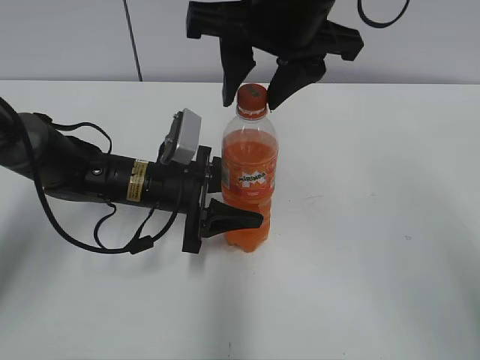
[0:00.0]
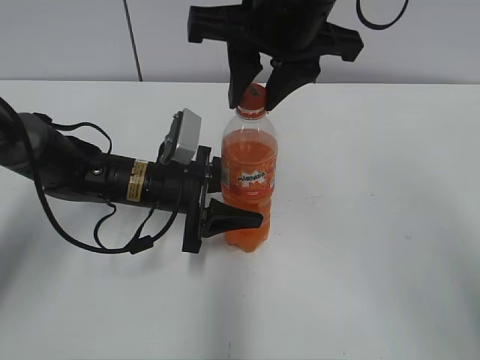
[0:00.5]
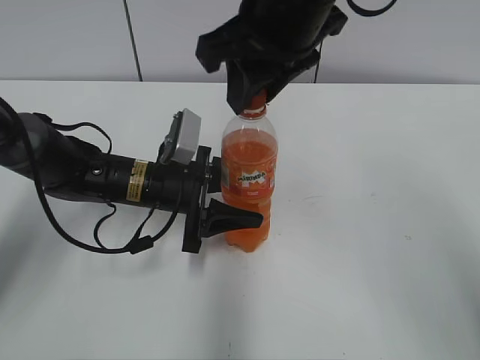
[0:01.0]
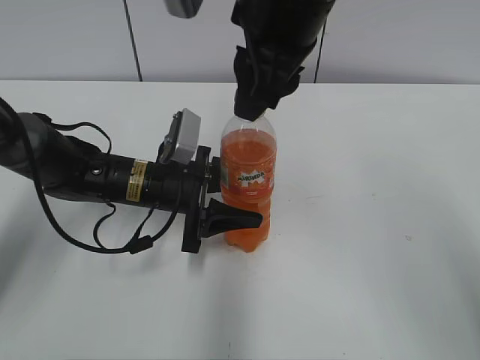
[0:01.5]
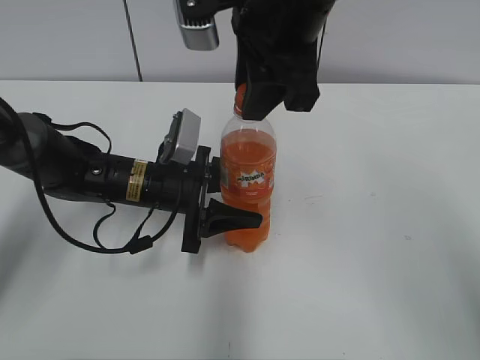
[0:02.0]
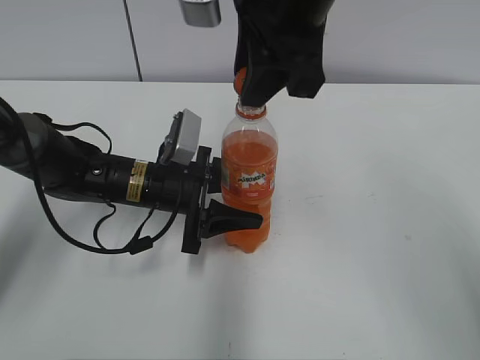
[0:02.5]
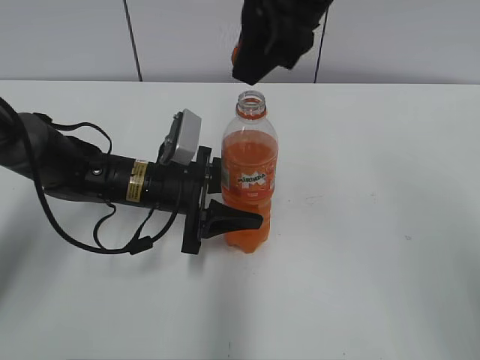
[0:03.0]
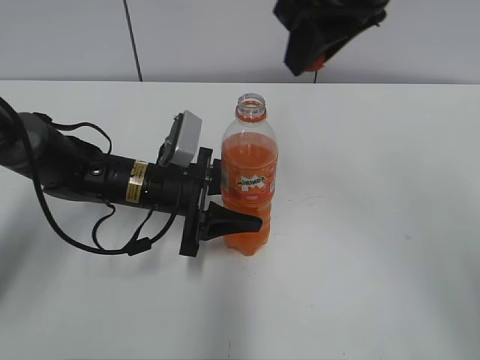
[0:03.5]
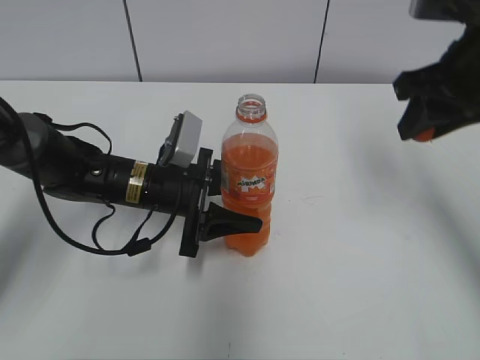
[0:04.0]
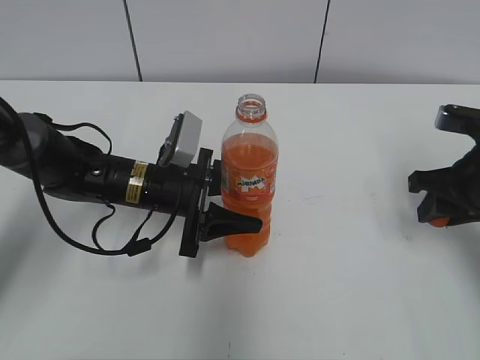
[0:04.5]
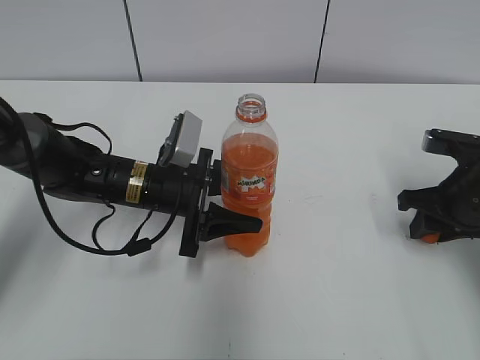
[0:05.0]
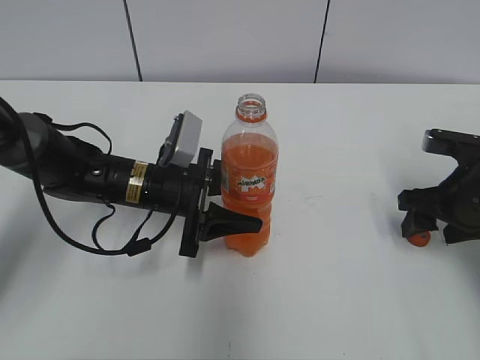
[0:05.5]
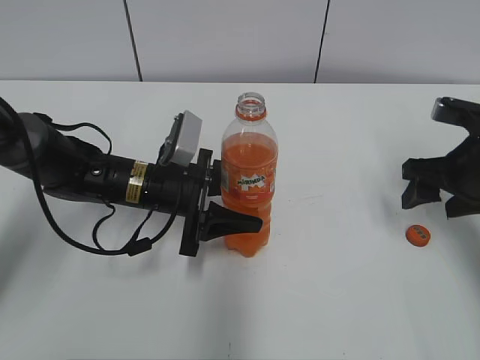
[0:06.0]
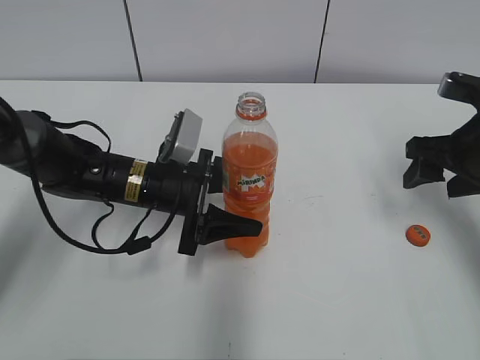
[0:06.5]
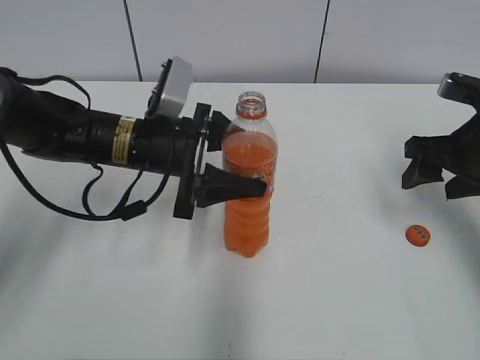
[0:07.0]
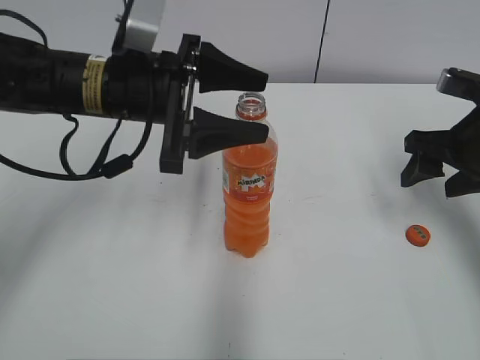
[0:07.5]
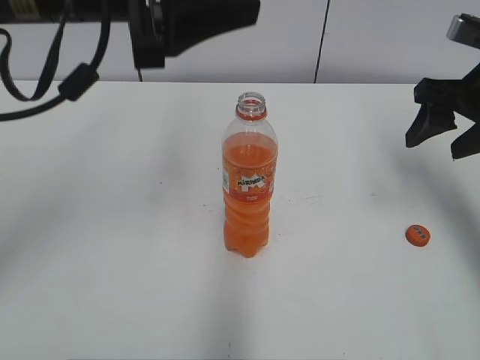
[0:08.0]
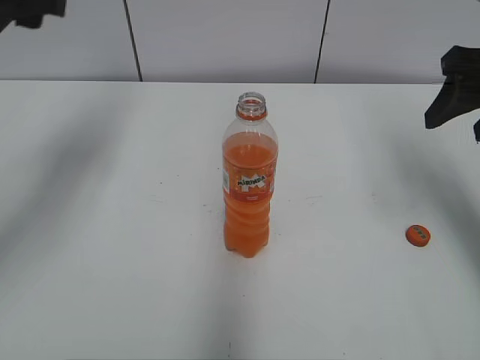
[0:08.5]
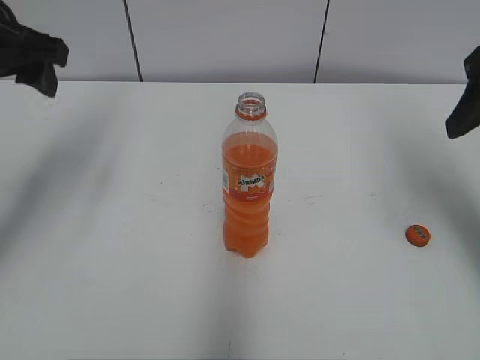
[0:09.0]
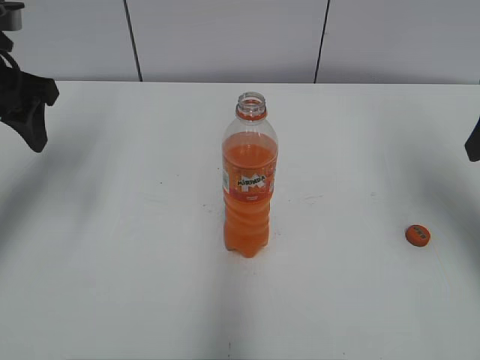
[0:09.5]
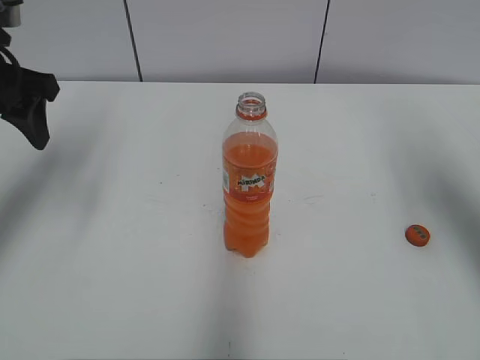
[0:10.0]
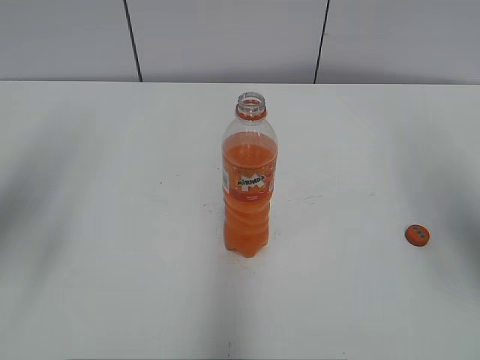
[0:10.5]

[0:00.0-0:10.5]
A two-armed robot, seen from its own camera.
Step, 0:03.0 to 0:05.0: Place the bottle cap on the right.
0:00.0 to 0:02.0: The right gripper closes its fingers.
0:02.0 to 0:04.0: The right gripper shifts approximately 20 cm to the right.
0:04.0 to 0:06.5: The left gripper opens up. The right gripper heads downward and to the right, covering approximately 10 cm, and opens up.
0:06.5 to 0:08.5: The left gripper heads upward and to the left, covering roughly 30 cm; the right gripper moves upward, some 10 cm.
0:08.5 to 0:10.5: The grippers both shift backward by approximately 10 cm.

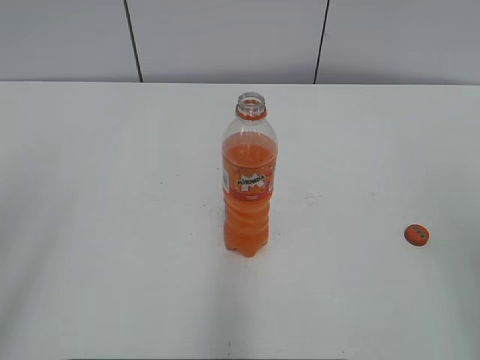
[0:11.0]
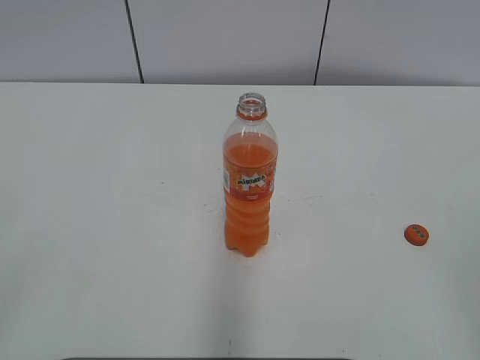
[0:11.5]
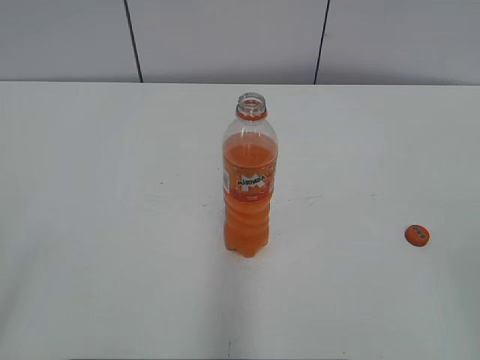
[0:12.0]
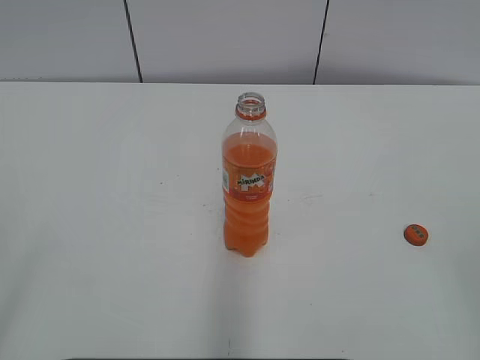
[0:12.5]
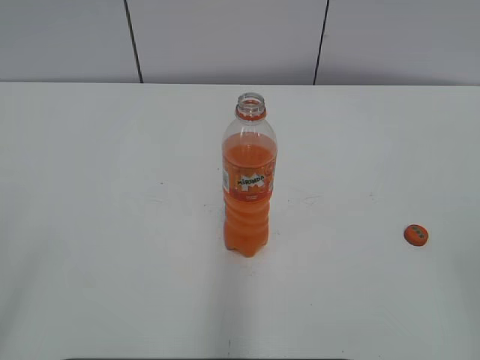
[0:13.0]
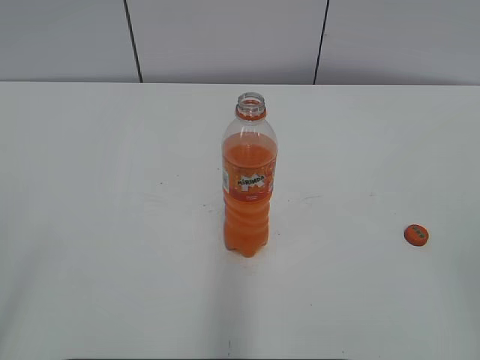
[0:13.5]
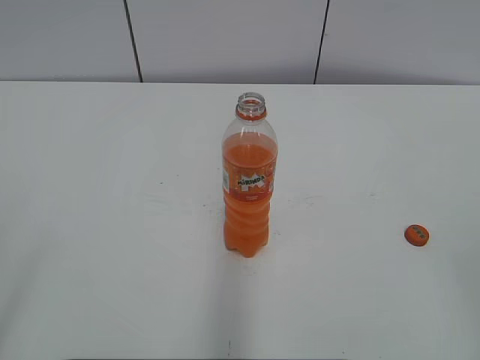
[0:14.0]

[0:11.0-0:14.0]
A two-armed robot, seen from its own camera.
0:12.5 to 0:14.0: Both grippers stay about where they are.

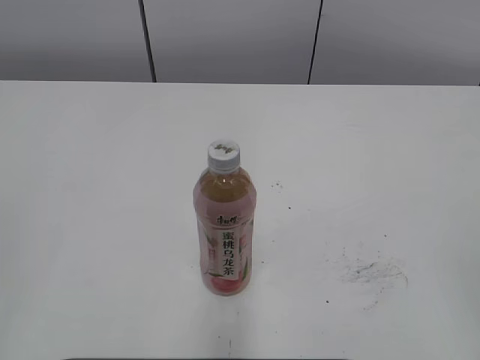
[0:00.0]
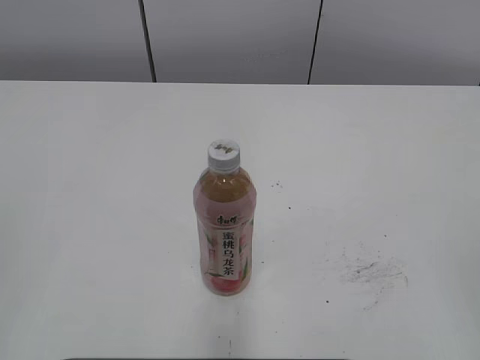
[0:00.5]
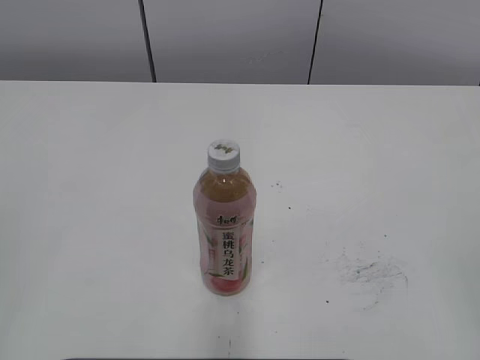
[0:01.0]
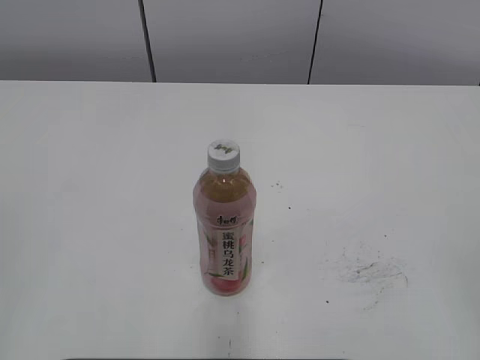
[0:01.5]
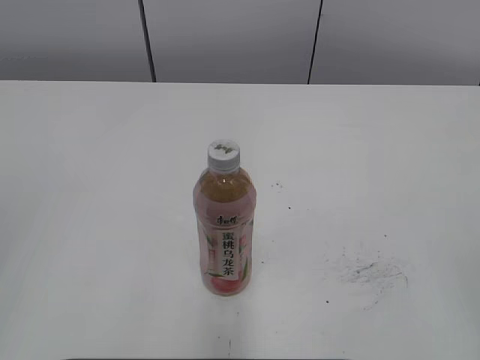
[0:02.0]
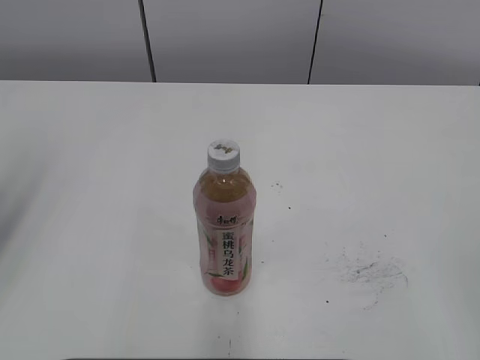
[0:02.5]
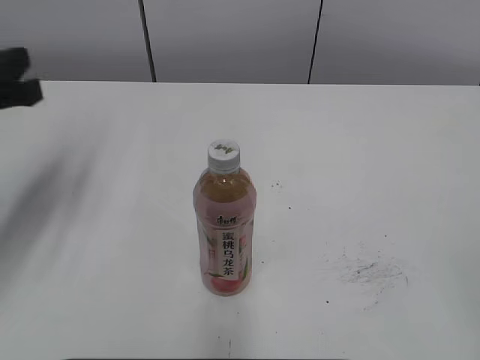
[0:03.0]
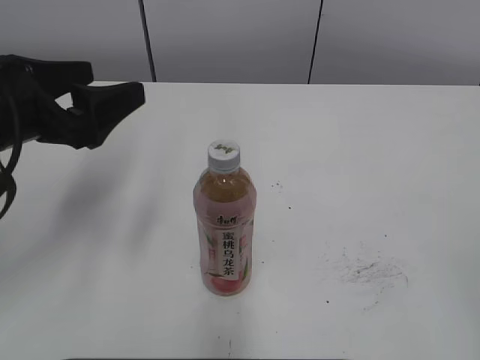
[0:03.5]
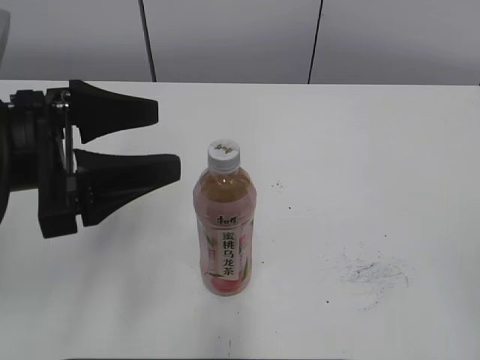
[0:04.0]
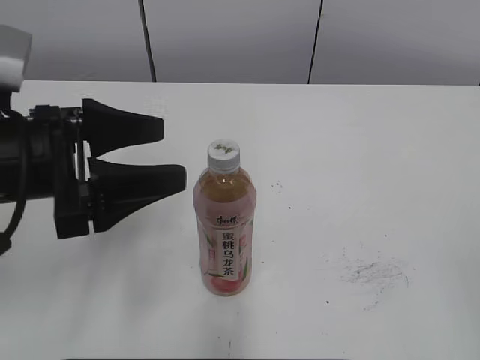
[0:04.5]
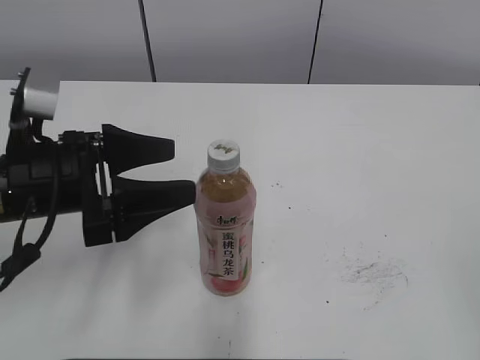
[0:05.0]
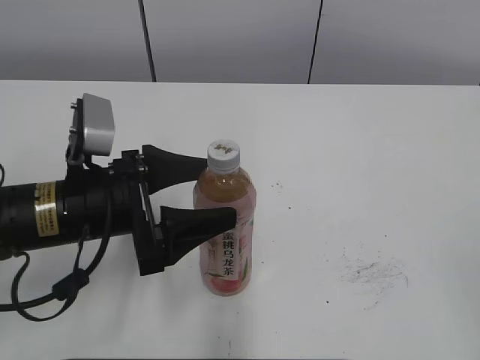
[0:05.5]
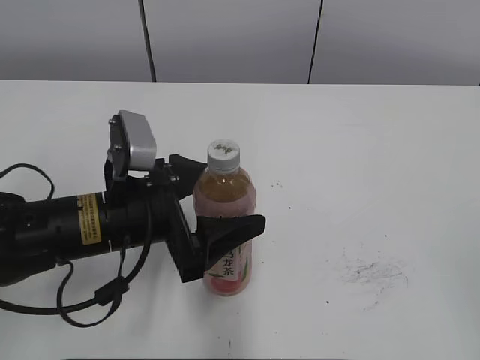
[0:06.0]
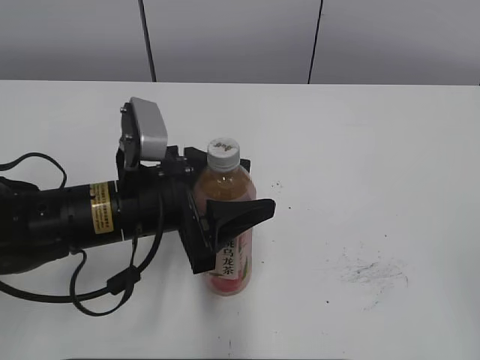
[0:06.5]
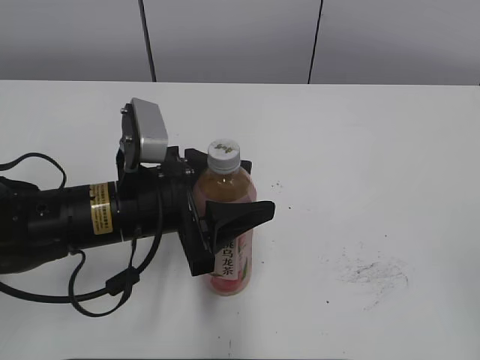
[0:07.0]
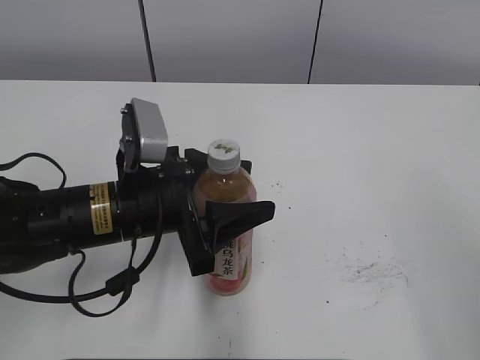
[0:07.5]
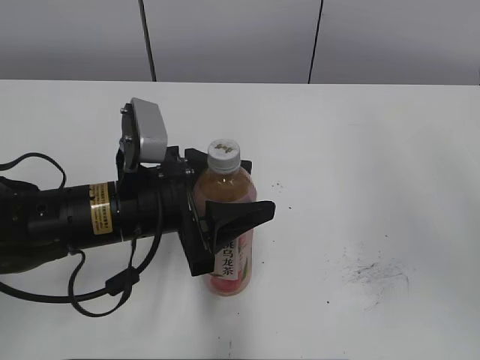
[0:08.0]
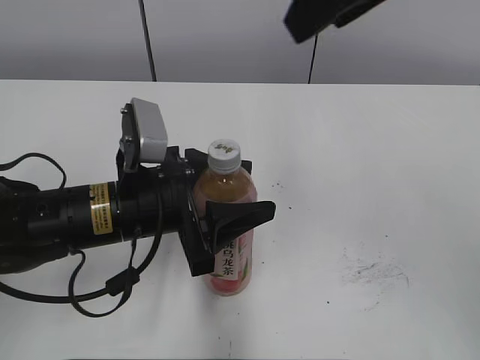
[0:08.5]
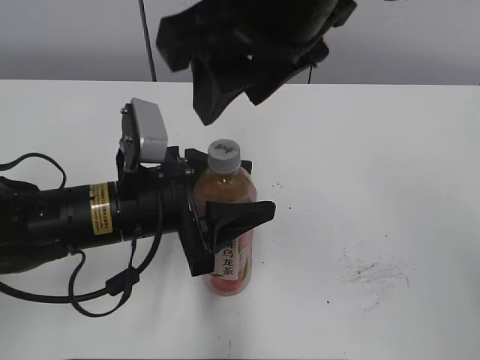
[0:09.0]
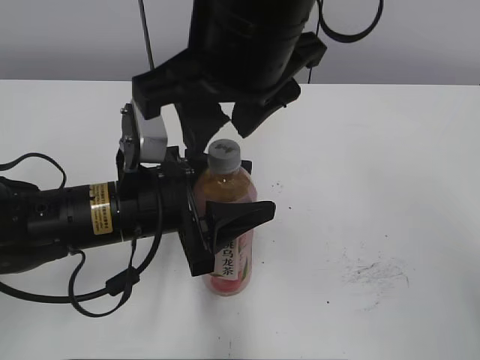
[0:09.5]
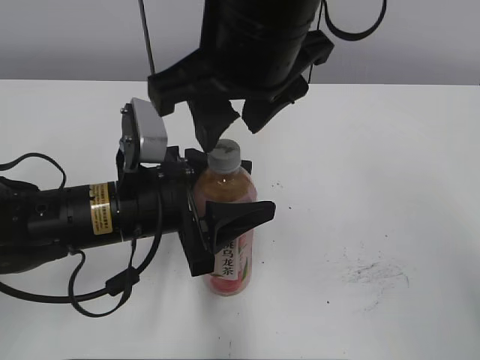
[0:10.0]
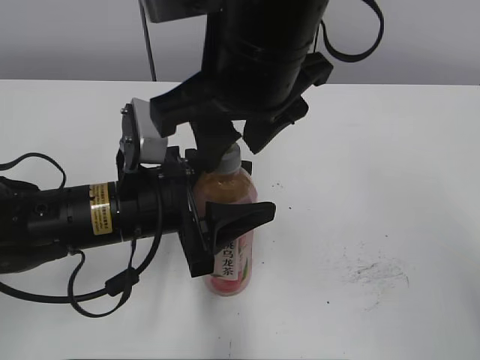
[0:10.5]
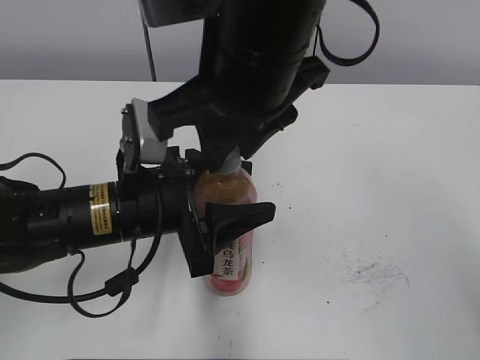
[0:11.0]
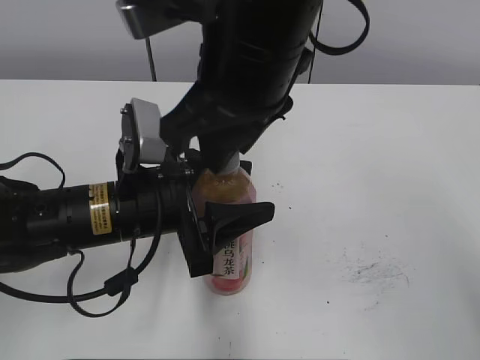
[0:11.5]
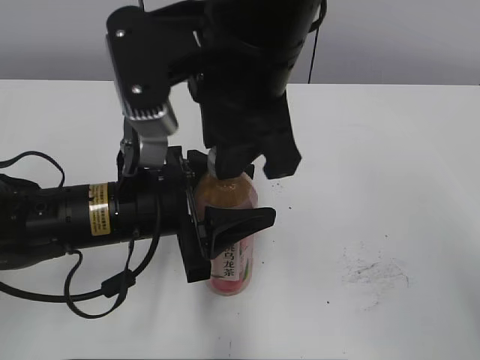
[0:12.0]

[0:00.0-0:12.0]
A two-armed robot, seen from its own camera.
Step, 0:00.0 to 0:06.5: Grab the Peach Oolong Tea with the left hand.
0:02.0 to 0:04.0: The left gripper shifts about 25 cm forward, to the right and downward, and opens its fingers.
0:04.0 to 0:06.0: The left gripper moves downward and to the right, roughly 10 cm.
0:06.0 to 0:08.0: The right gripper moves forward and upward, roughly 20 cm; the left gripper closes its fingers.
0:08.0 to 0:10.0: The right gripper moves to the left, about 25 cm.
0:10.0 to 0:12.0: The right gripper closes up.
